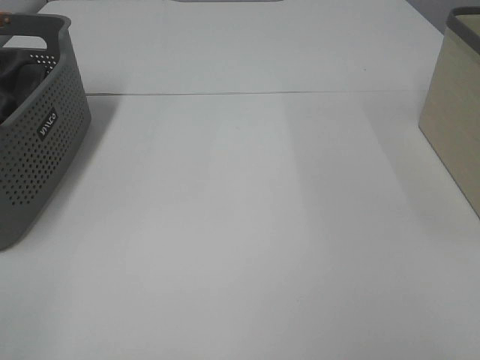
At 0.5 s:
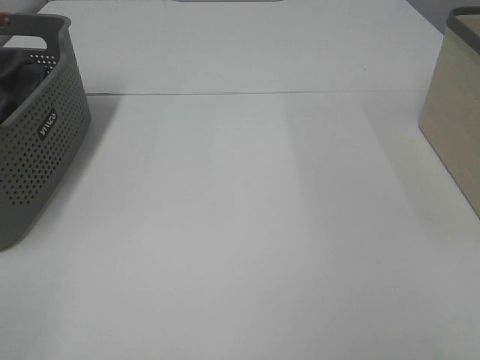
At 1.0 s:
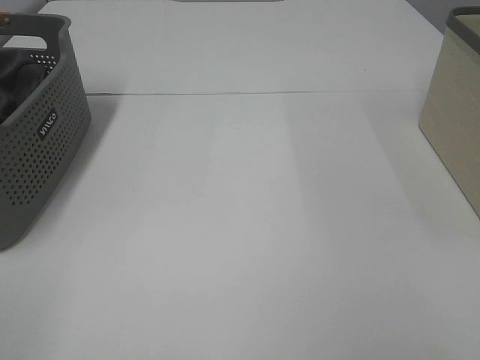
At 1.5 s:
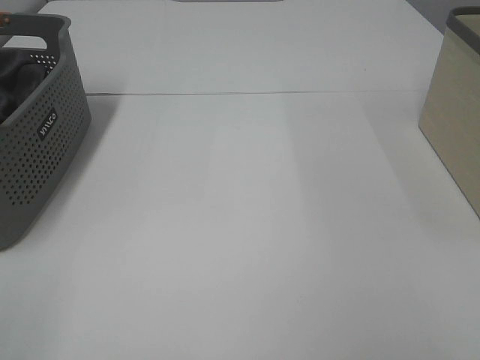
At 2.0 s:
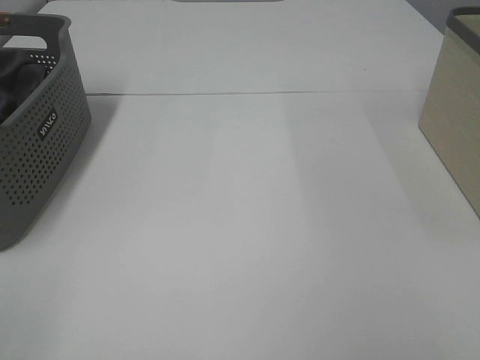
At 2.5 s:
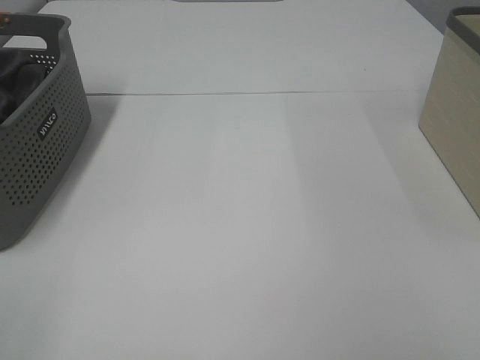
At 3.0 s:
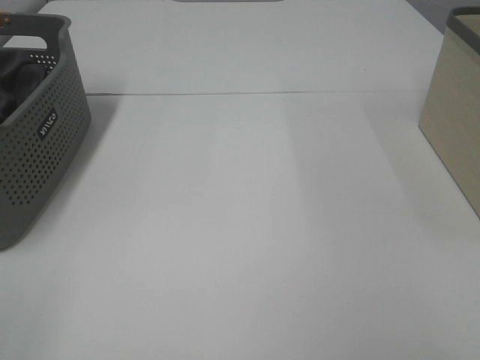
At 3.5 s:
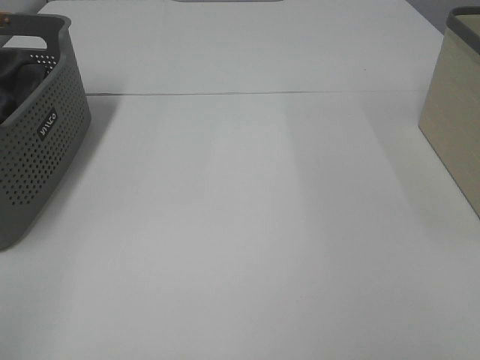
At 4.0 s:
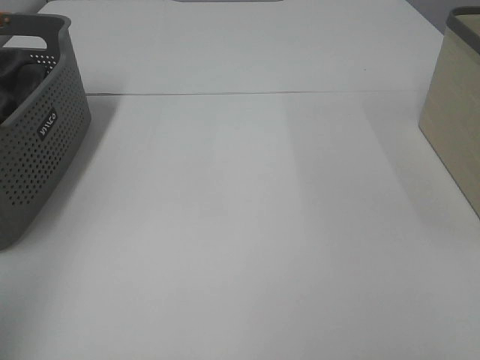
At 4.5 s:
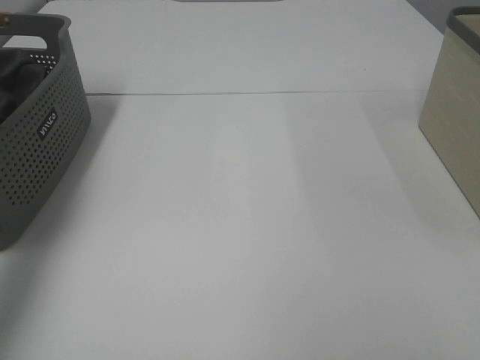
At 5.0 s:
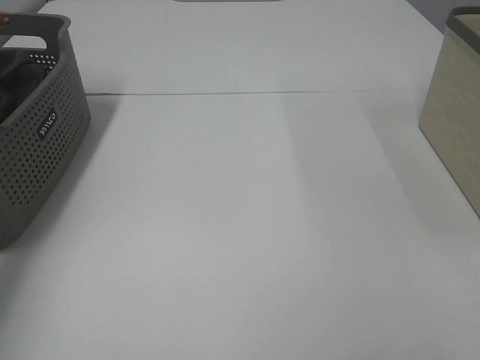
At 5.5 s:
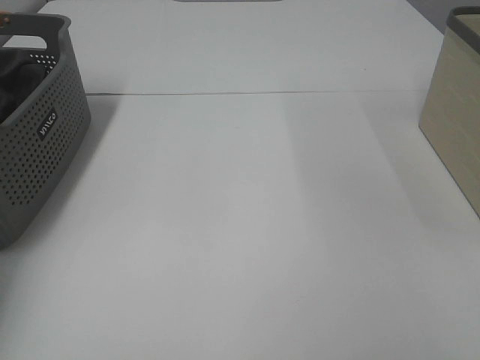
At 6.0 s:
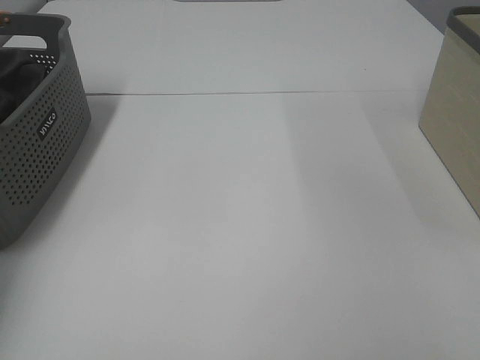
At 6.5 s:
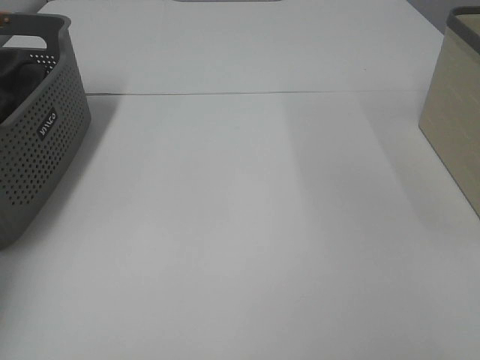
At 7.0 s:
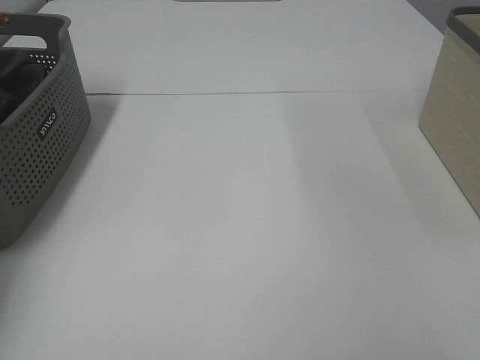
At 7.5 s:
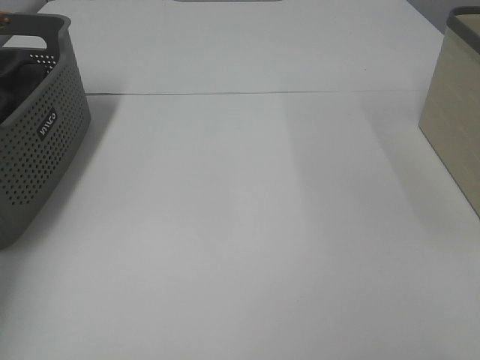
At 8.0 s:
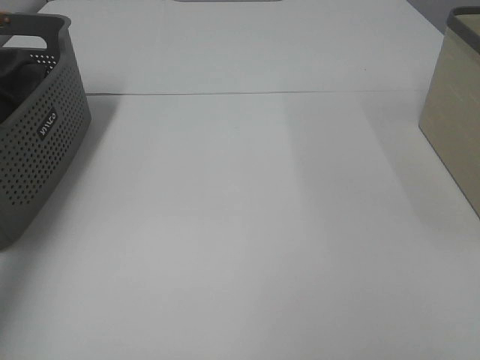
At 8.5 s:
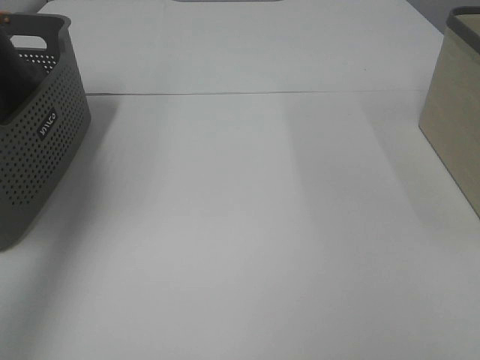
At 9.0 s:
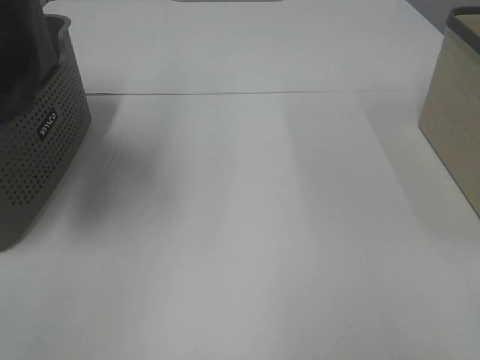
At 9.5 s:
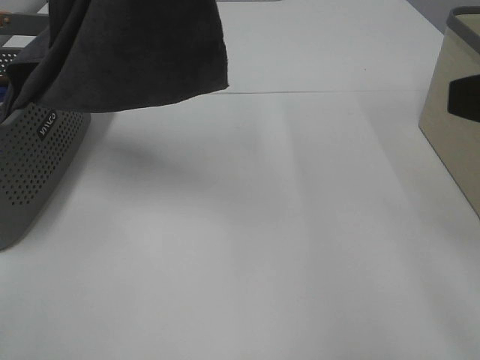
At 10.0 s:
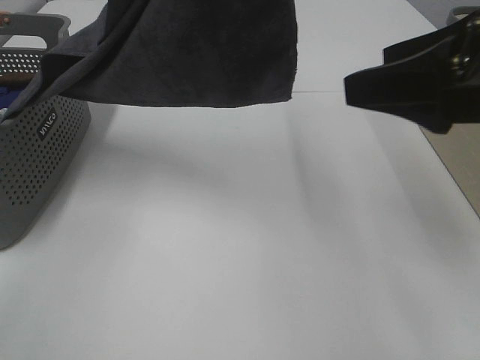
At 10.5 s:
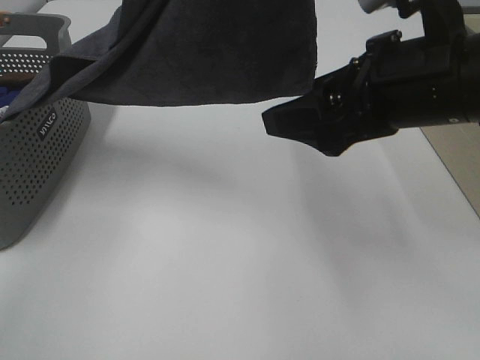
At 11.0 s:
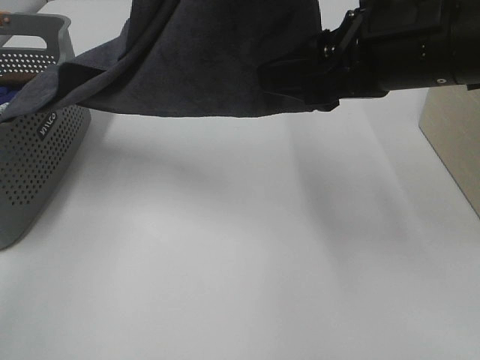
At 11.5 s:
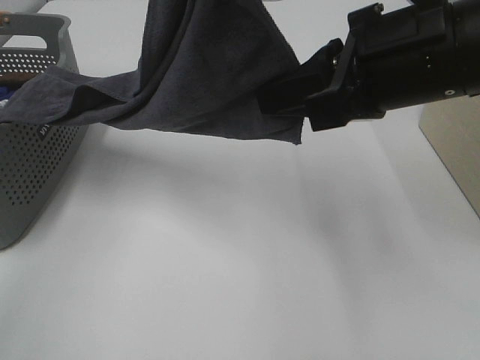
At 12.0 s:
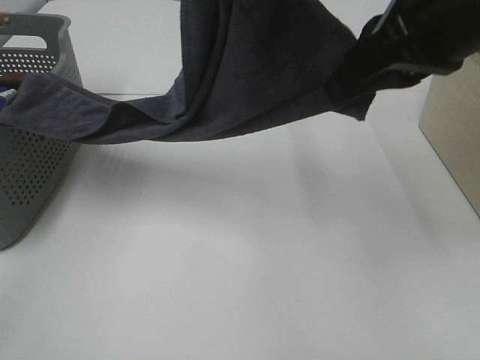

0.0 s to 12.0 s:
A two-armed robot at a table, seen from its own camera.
Task of the whole recording: Remove the towel and place it.
0.0 to 2.0 s: Both grippers stay put.
2.0 to 4.0 s: The left gripper moves forward and upward, some 15 cm.
4.0 to 6.0 s: The left gripper moves forward and downward, about 35 cm, and closes its fingers.
6.0 to 8.0 s: The left gripper travels upward and backward by roughly 15 cm, and closes up.
8.0 to 10.0 s: The right gripper is displaced forward by some 20 cm; the left gripper moves to the right and upward, roughly 35 cm.
10.0 to 12.0 s: The right gripper is displaced to the left by approximately 5 cm, and closes.

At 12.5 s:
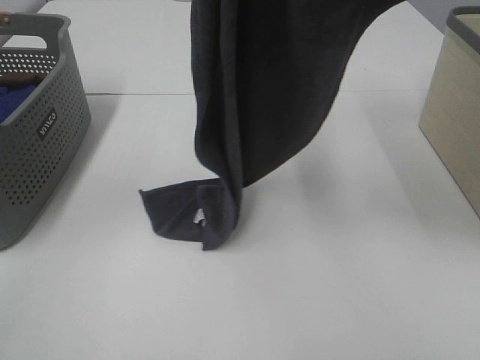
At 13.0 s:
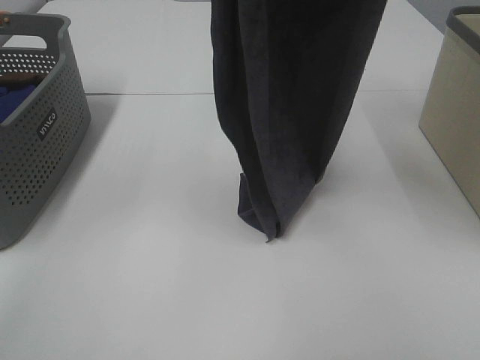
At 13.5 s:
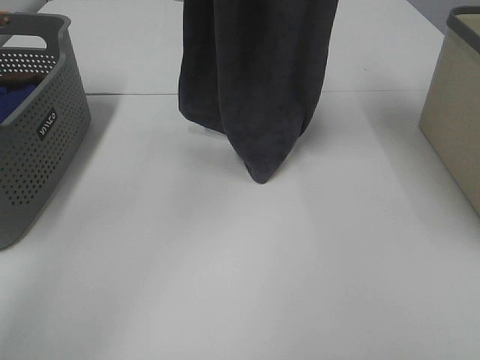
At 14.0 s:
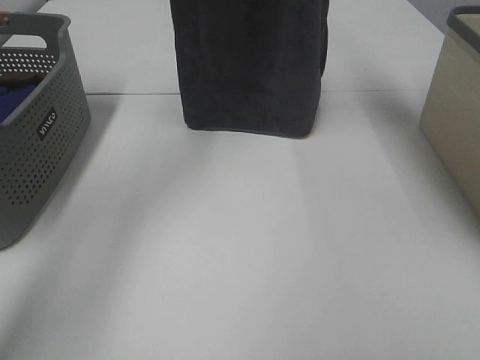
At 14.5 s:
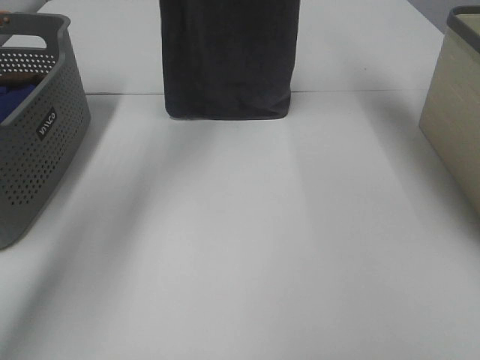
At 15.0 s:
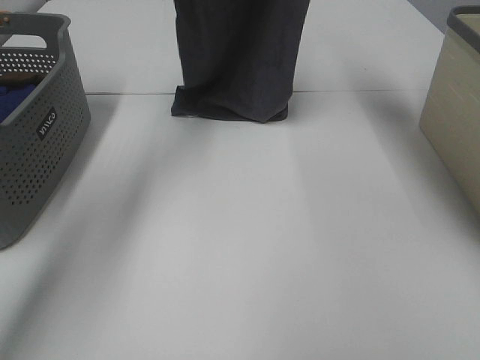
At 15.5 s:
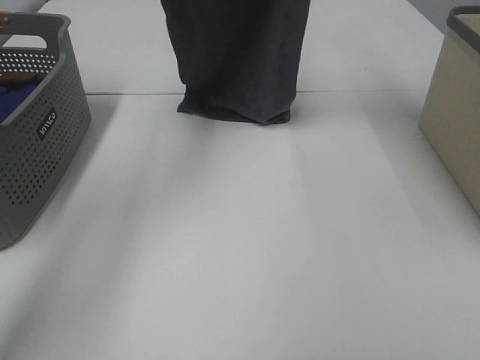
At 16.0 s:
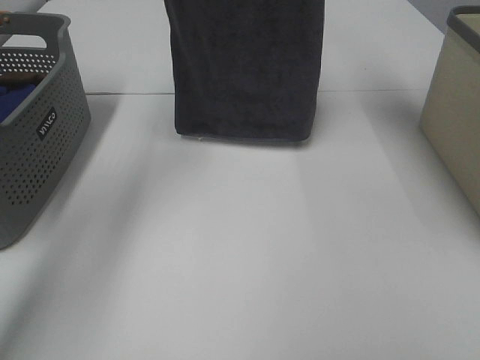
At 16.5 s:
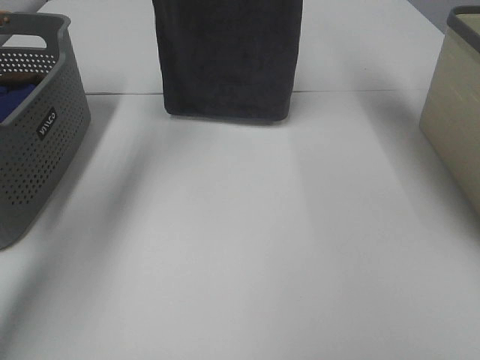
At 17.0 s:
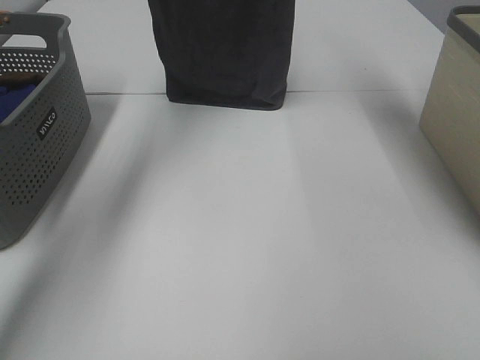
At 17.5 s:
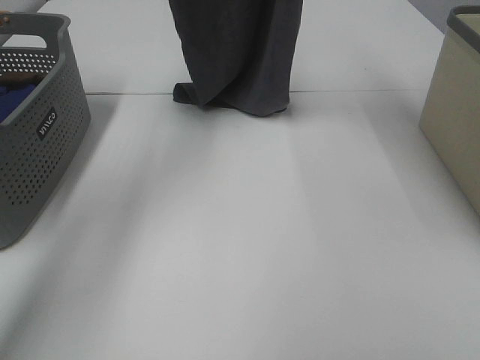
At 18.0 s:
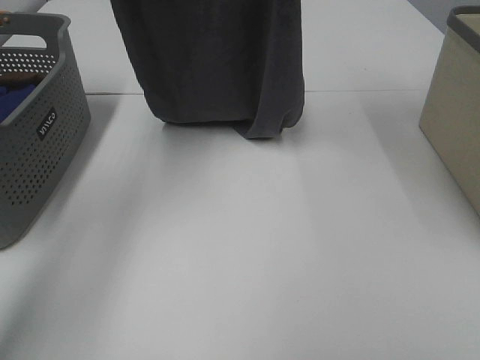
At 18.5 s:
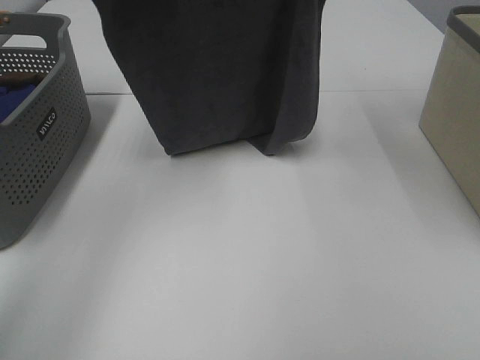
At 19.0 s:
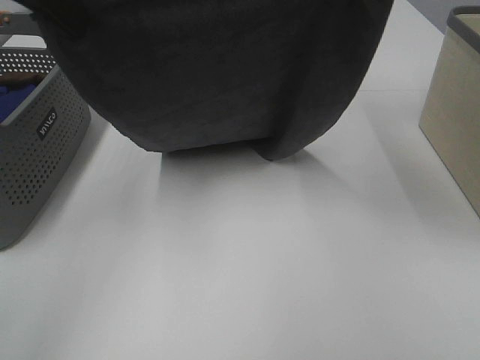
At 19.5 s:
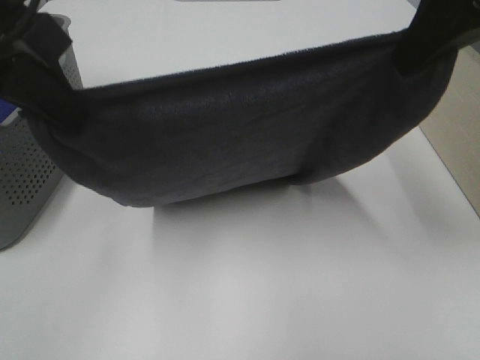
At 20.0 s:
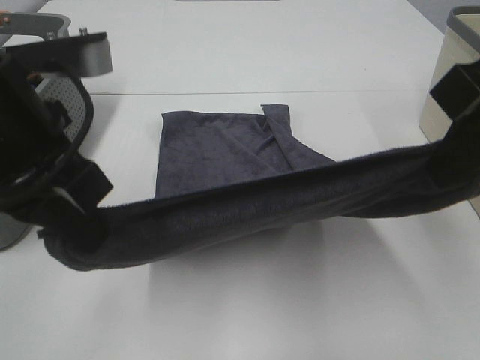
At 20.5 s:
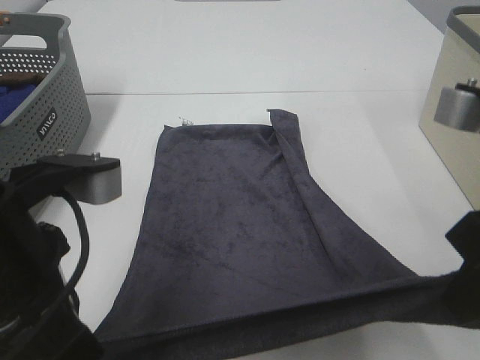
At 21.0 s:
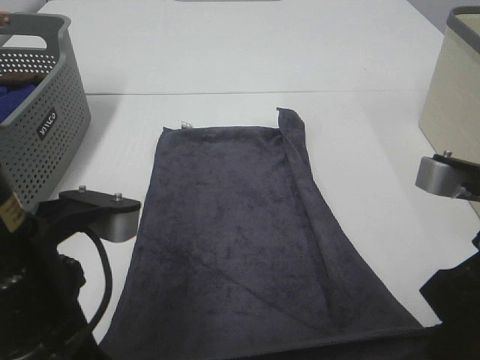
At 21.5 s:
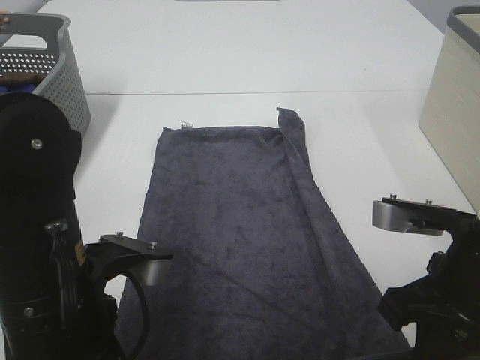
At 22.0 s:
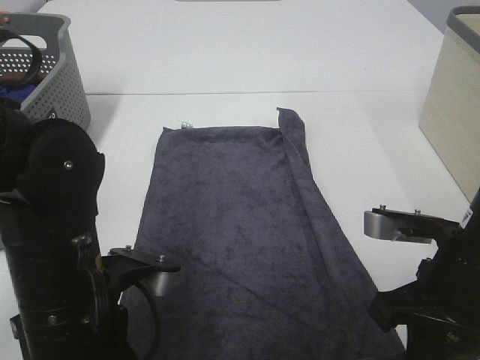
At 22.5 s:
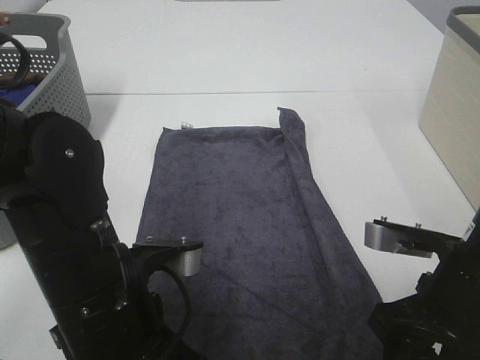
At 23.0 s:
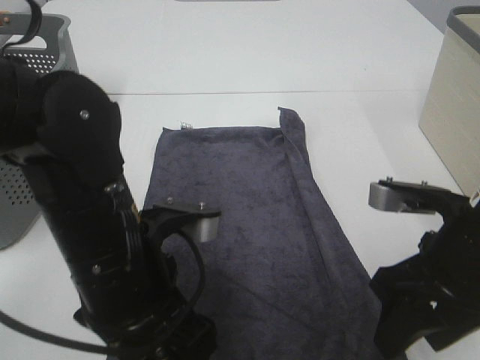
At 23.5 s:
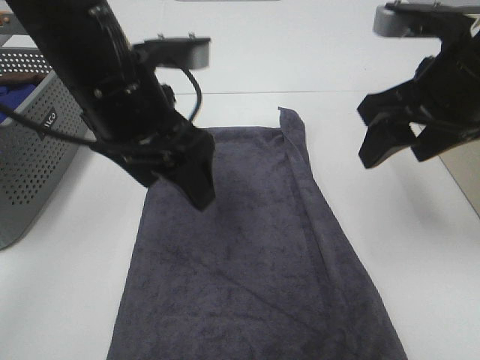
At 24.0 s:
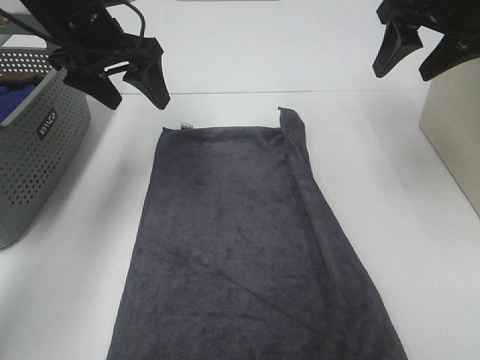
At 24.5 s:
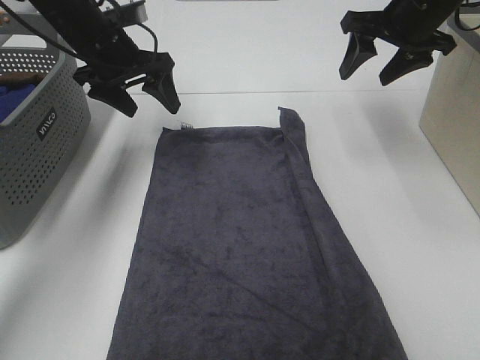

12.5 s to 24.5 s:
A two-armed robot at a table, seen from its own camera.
Task of the whole recording: Remove the towel and place it.
Step, 13.5 to 18.0 s: Left hand: spread the grey towel flat on the table.
Step, 13.5 to 18.0 s: Right hand: spread the grey towel flat on the table.
12.5 to 14.5 s: The two grippers go some 25 cm forward.
16.5 to 18.5 s: The grippers both shift backward and downward by approximately 10 cm.
18.5 to 20.5 s: Both grippers move backward and downward, roughly 30 cm.
20.5 to 22.5 s: The two grippers go roughly 10 cm downward. The right gripper opens its fingers, while the left gripper opens its fingers.
22.5 to 24.5 s: The two grippers go about 30 cm forward.

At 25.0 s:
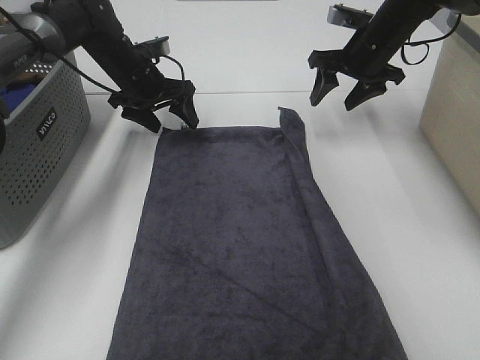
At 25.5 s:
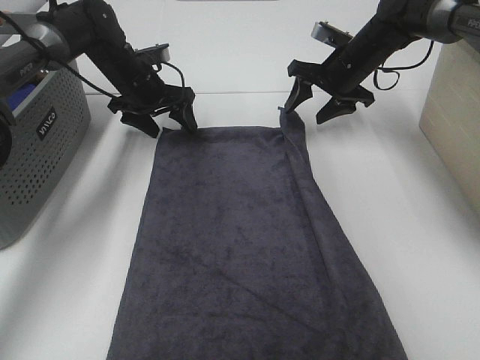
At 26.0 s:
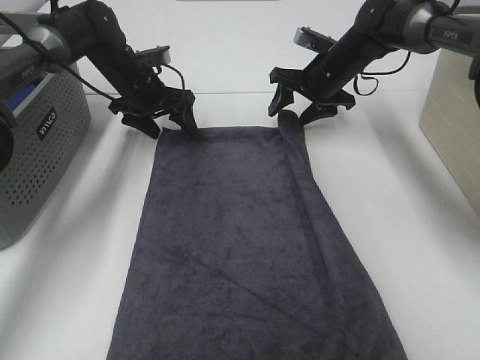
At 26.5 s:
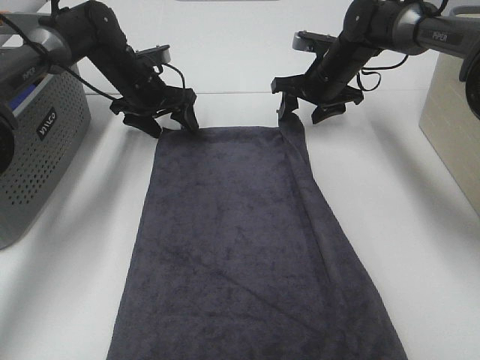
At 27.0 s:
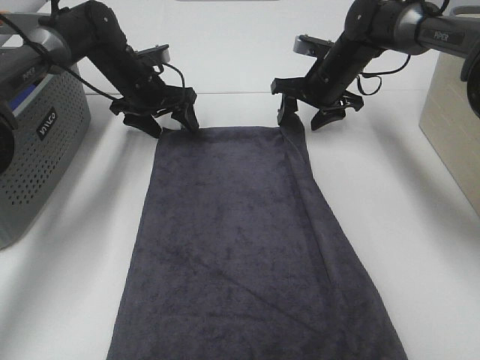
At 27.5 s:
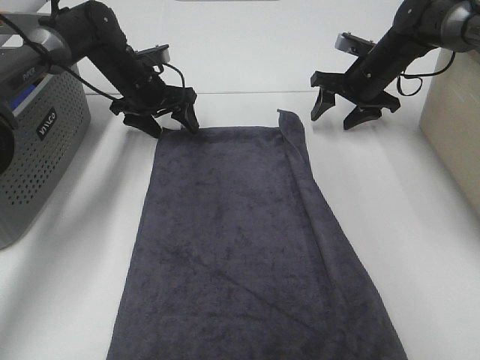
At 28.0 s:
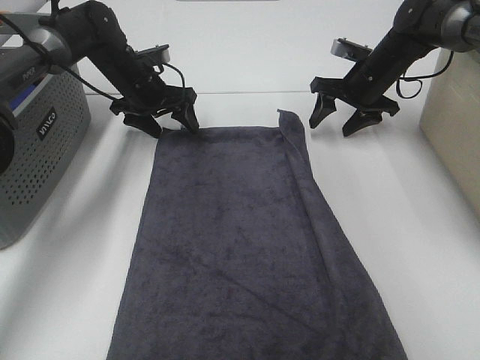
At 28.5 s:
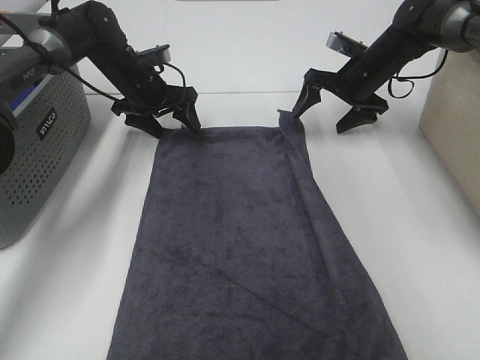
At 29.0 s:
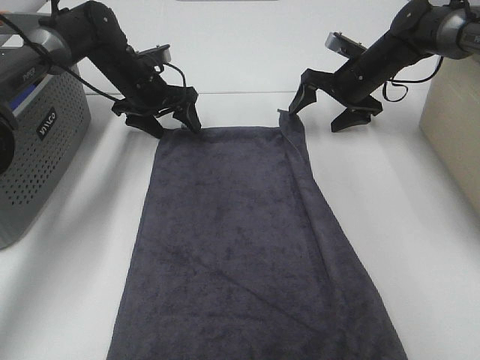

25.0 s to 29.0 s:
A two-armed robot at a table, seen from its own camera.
Task of the whole recording: Remove the towel and place it.
25.0 to 27.0 s: The right gripper ends up approximately 5 cm from where it was.
27.0 to 29.0 s: The right gripper heads to the right, covering roughly 5 cm.
